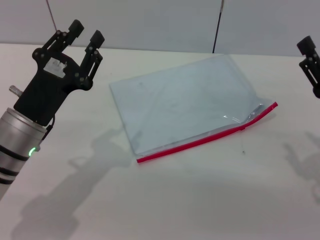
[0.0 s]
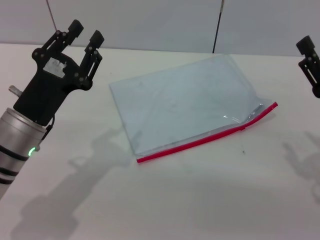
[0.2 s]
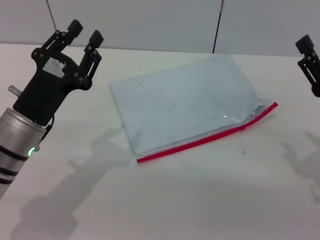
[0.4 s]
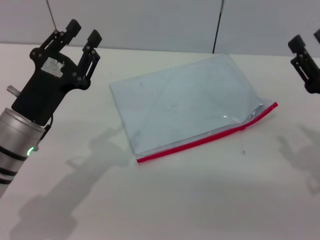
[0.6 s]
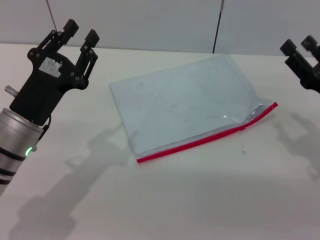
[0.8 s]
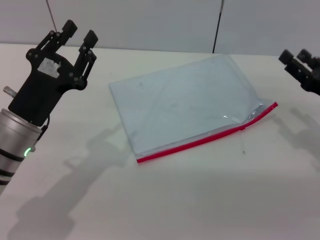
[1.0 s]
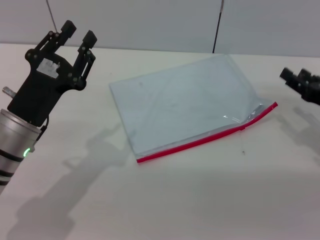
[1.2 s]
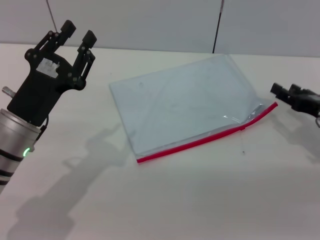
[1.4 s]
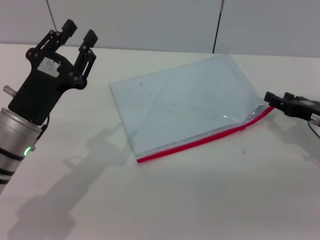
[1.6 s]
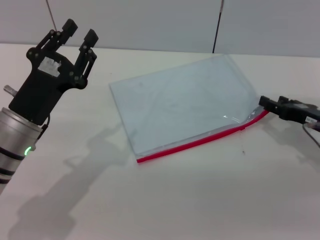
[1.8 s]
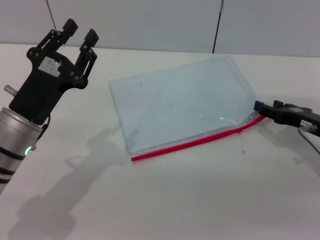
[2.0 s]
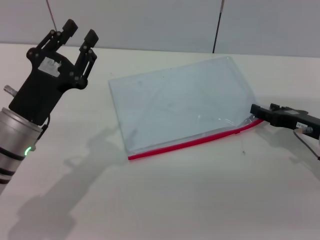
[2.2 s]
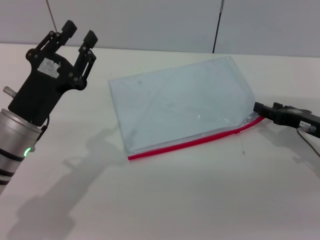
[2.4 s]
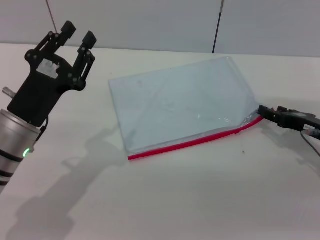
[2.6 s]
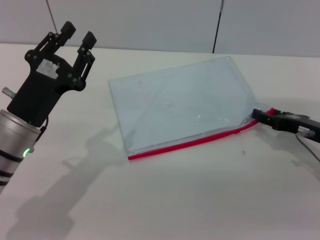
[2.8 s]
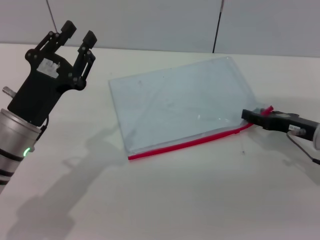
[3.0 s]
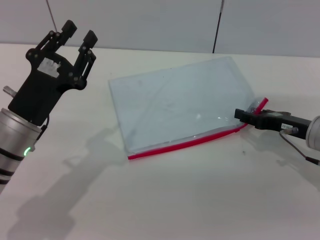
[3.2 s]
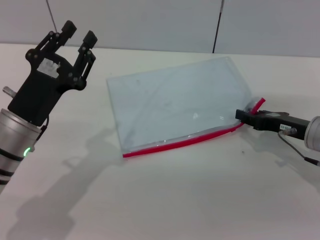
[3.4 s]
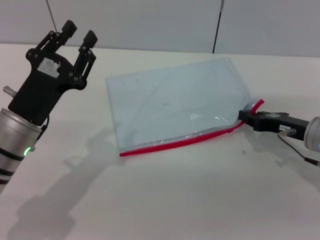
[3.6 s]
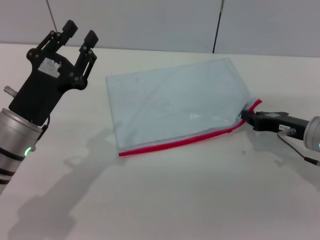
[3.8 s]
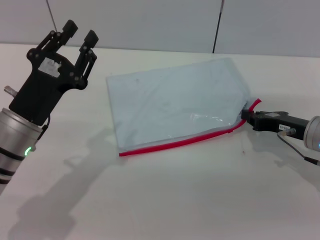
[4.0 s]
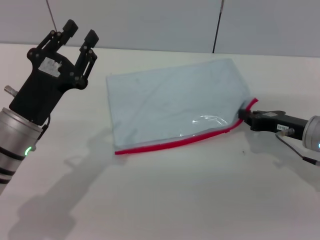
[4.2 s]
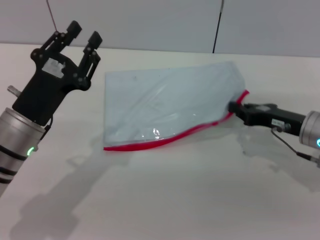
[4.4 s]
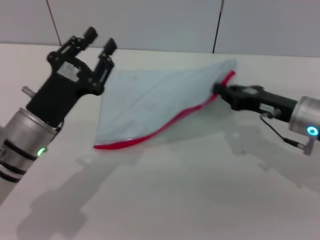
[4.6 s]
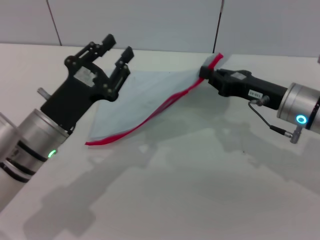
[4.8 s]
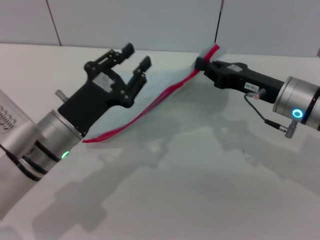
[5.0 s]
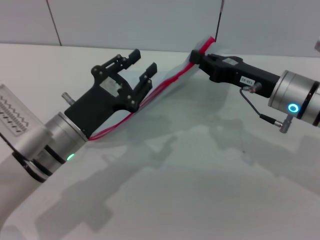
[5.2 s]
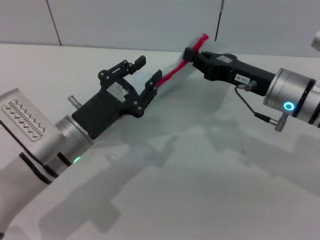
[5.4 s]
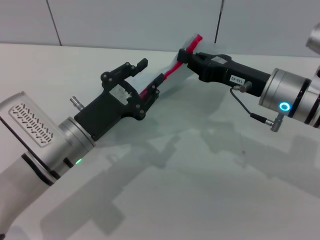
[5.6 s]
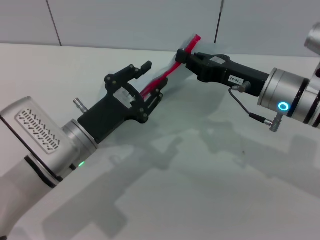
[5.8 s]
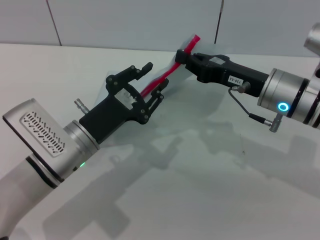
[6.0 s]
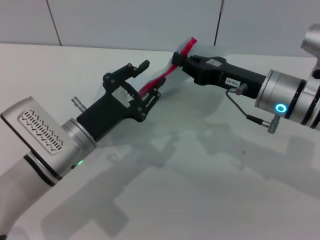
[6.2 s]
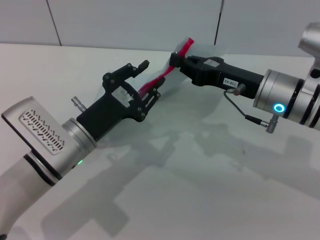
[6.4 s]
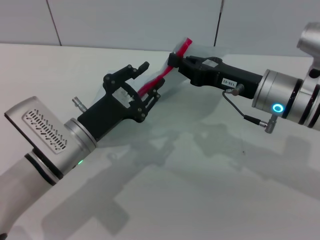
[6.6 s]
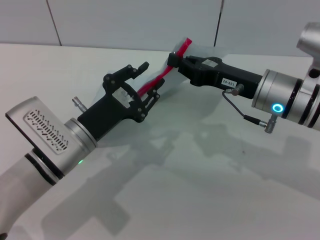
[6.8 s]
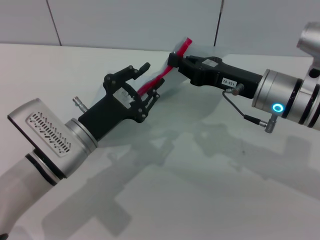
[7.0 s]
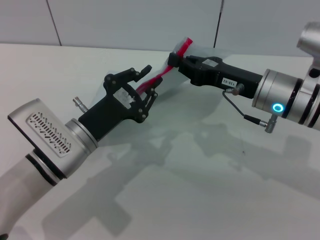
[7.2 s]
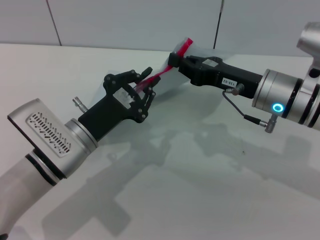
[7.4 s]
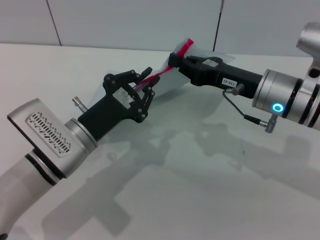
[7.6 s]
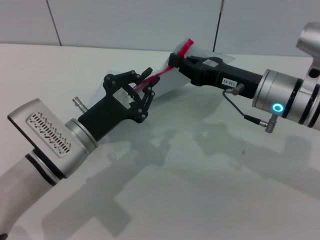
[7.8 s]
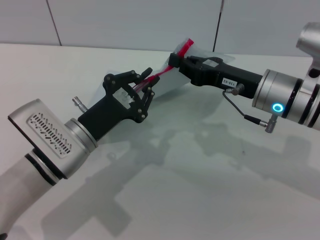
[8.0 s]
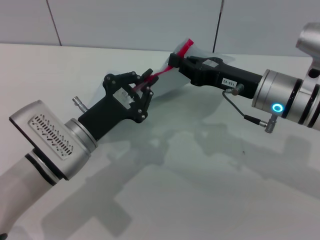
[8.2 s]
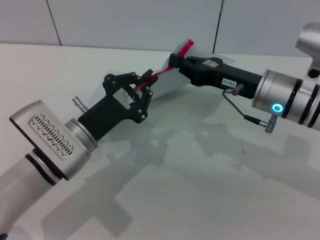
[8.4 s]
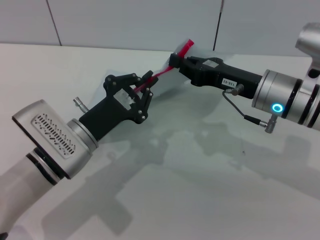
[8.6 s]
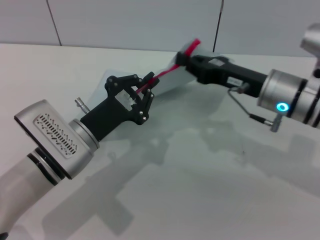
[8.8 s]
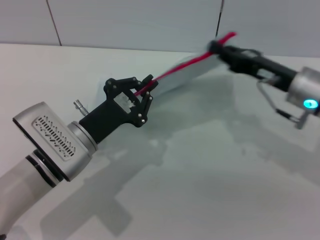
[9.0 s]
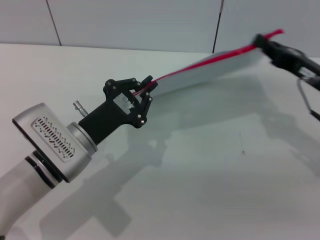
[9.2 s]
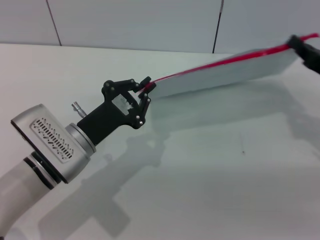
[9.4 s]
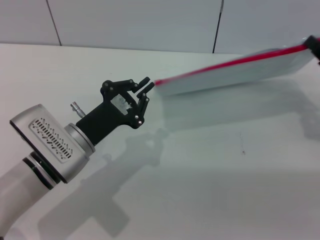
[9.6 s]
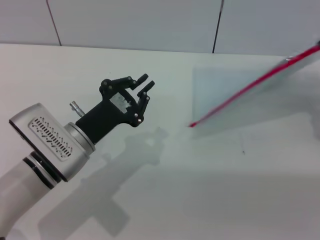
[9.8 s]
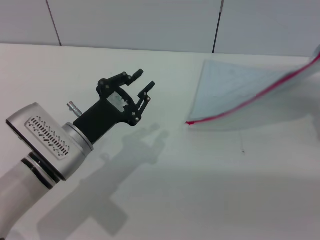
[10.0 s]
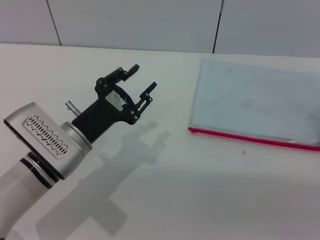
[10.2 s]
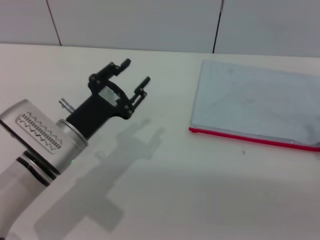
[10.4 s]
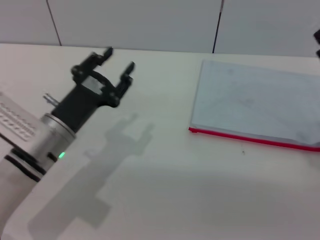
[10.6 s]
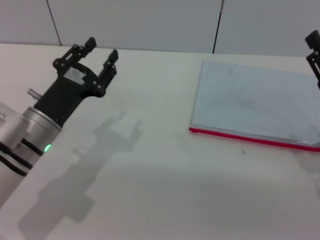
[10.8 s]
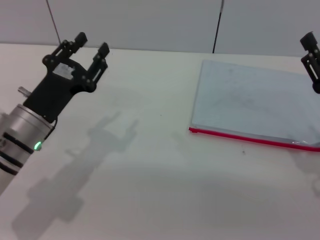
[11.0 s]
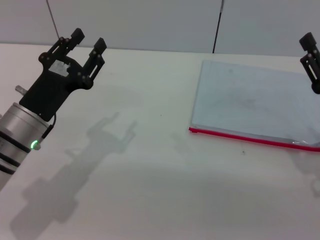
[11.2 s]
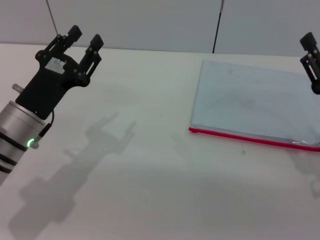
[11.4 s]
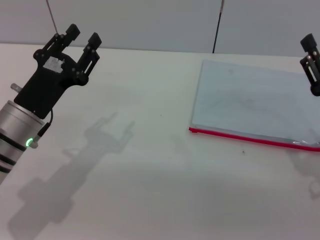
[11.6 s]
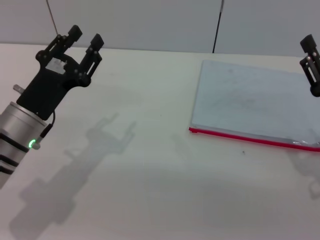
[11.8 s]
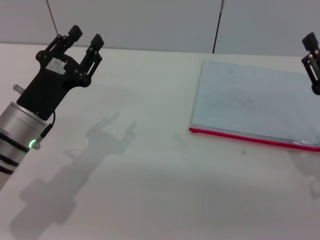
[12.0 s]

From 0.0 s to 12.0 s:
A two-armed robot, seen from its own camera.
Step, from 0.0 s to 5.2 s: Pick up the transparent plastic bag with the right gripper.
Step, from 5.4 s to 9.4 s: Pulling up the zipper on the transparent plastic bag with the left gripper to close it.
Step, from 9.8 s to 10.2 s: Place the transparent plastic bag.
From 0.0 s to 1.6 s: The right gripper heads forward, covering about 10 cm.
From 1.6 s to 3.0 s: The grippers make only small movements.
From 3.0 s to 4.4 s: The right gripper closes up.
From 4.4 s to 6.0 s: The right gripper moves to the left and upward, about 10 cm, while the left gripper moves to the right, about 5 cm.
From 6.0 s to 7.6 s: The left gripper closes up.
From 7.6 s to 9.0 s: The grippers stay close to where they were, moving slightly.
From 9.0 s to 10.4 s: The left gripper opens its fingers. The right gripper moves to the right and backward, some 15 cm.
From 10.4 s to 12.0 s: The left gripper moves roughly 5 cm; the right gripper changes place by roughly 5 cm, and opens.

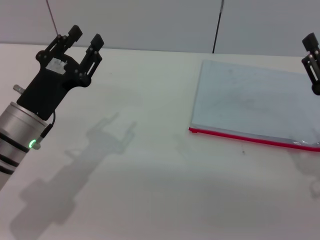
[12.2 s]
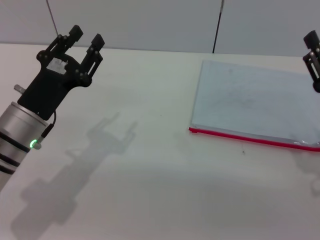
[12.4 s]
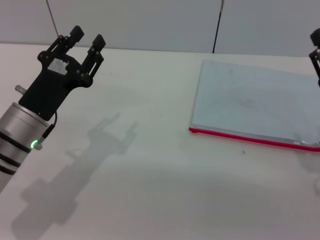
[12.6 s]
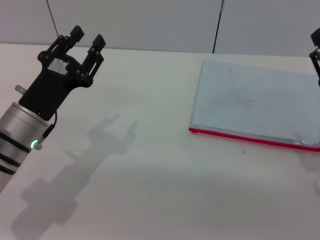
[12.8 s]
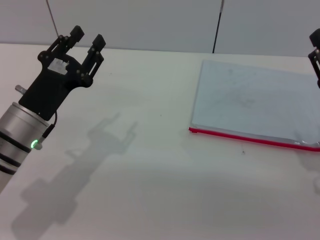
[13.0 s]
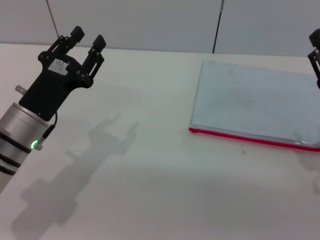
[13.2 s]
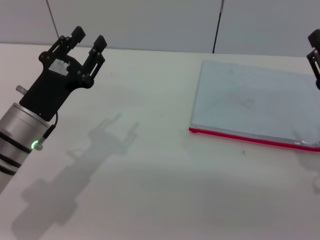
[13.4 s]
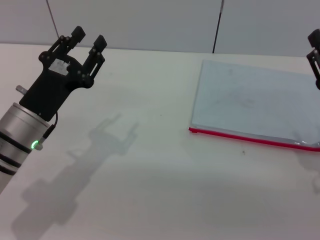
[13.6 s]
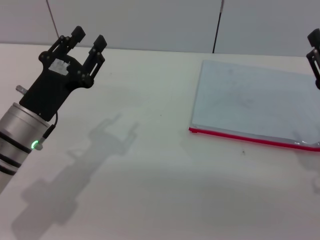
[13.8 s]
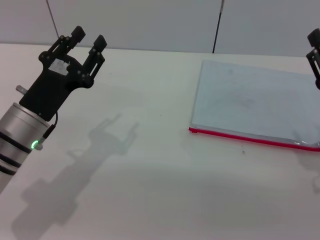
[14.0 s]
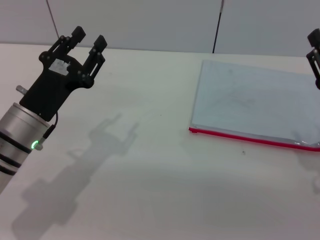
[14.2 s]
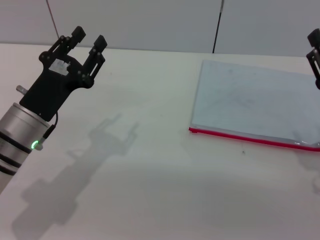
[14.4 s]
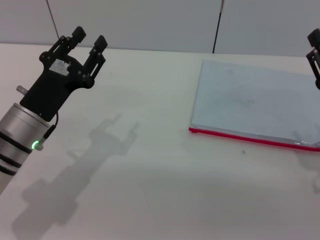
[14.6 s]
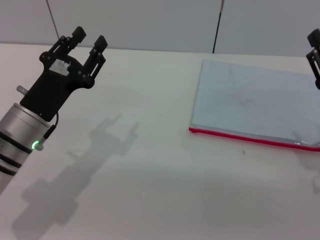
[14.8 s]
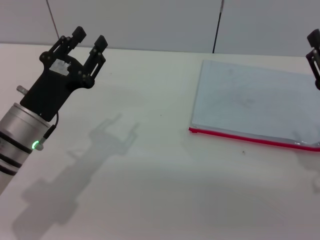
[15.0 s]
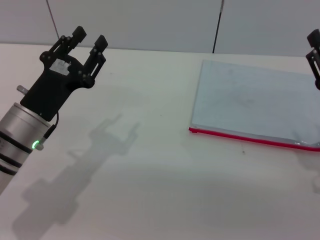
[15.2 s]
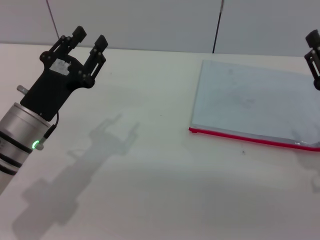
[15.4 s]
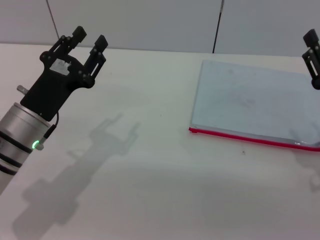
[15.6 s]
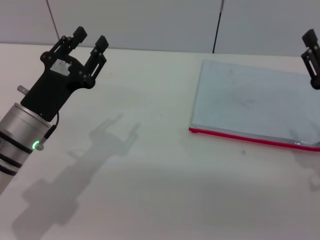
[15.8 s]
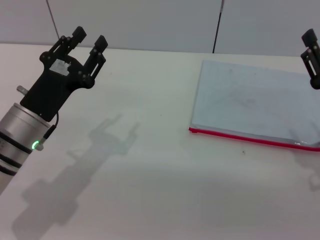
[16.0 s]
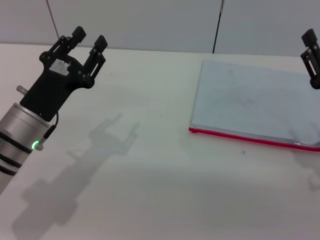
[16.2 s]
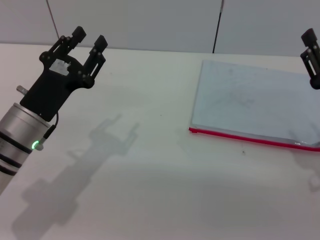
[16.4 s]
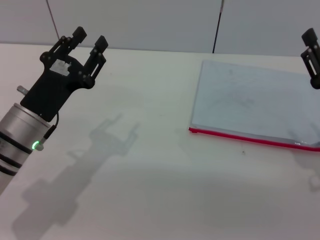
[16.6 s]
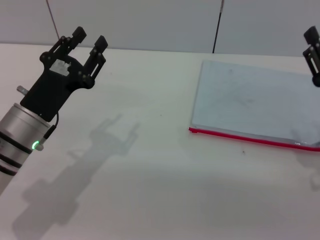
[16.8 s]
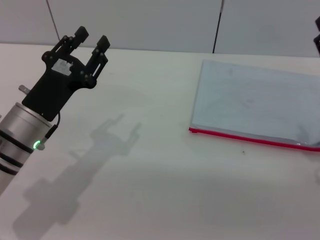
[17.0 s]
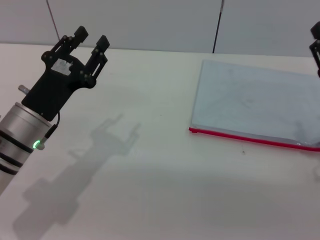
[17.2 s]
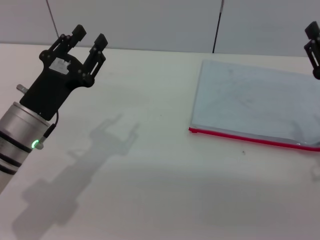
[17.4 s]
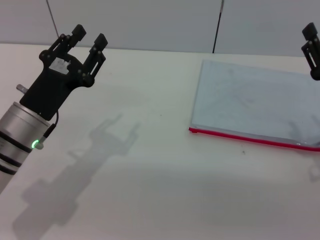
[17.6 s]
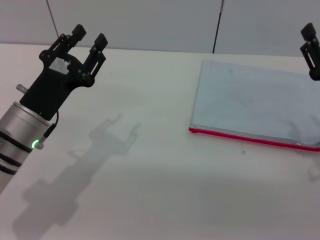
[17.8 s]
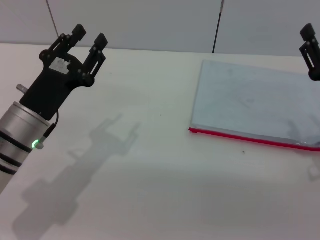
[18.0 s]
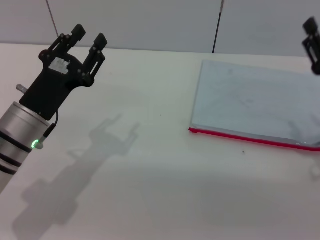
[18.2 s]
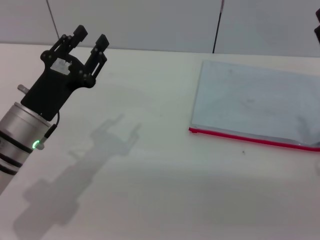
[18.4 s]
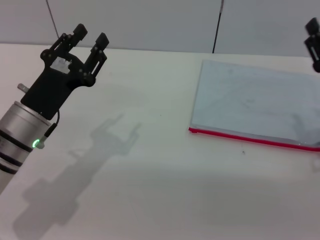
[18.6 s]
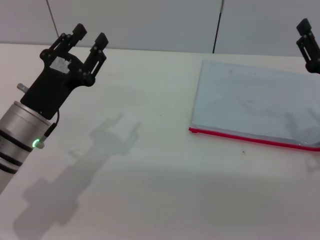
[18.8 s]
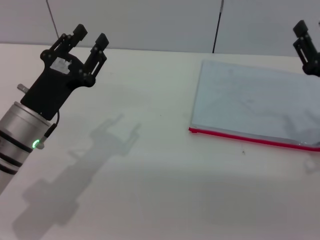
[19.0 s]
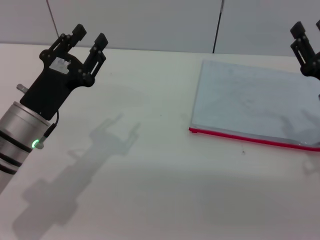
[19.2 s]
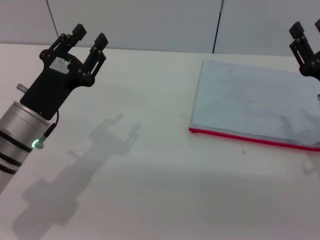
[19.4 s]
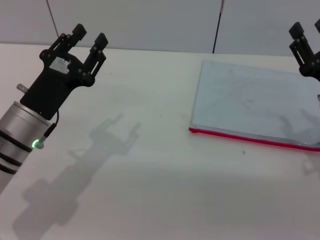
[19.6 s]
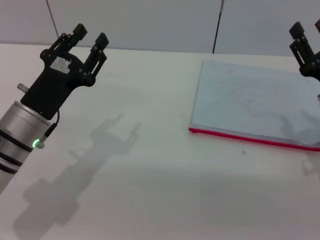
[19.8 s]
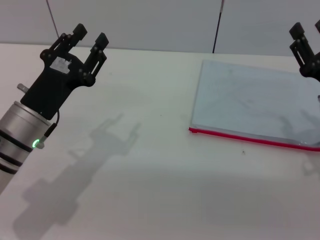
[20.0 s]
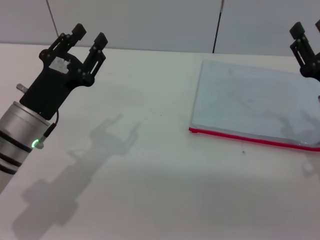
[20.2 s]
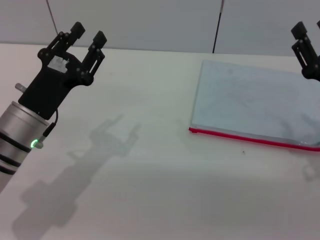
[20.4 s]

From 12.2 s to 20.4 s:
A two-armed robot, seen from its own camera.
From 12.2 s to 15.4 s: Both grippers stay about where they are.
From 15.4 s to 18.8 s: The grippers make only small movements.
From 18.8 s to 20.4 s: Both grippers stay put.
